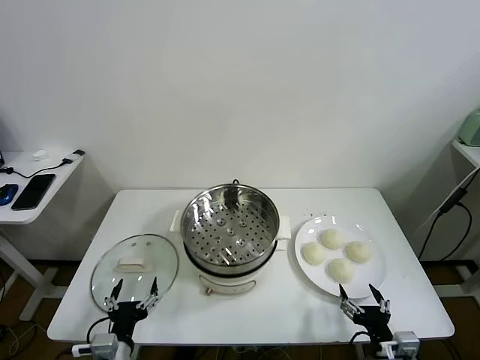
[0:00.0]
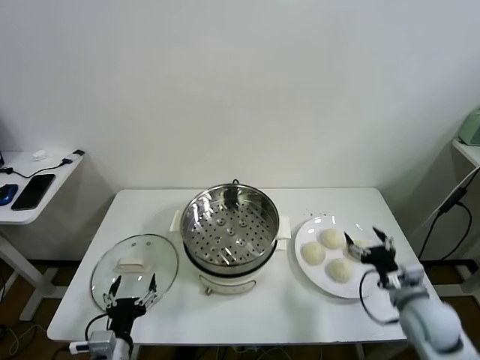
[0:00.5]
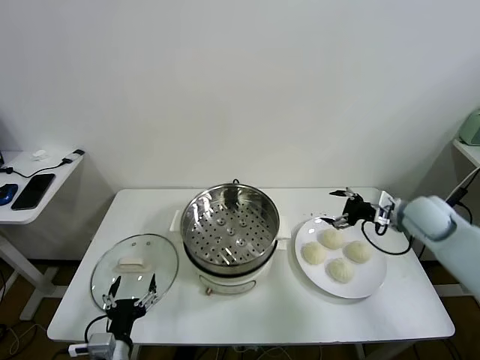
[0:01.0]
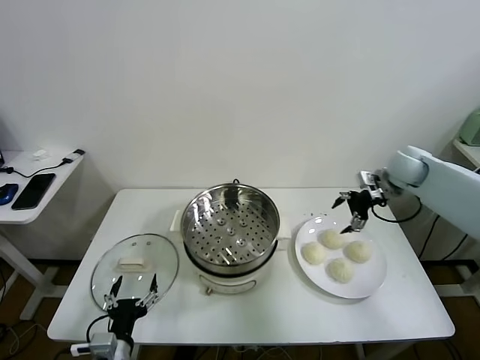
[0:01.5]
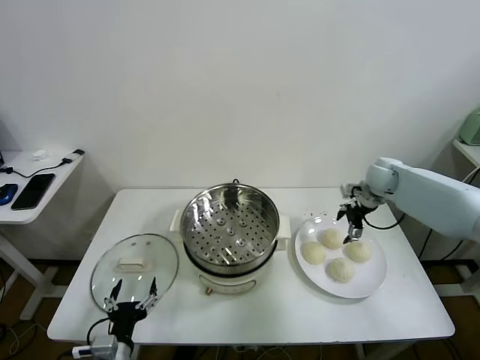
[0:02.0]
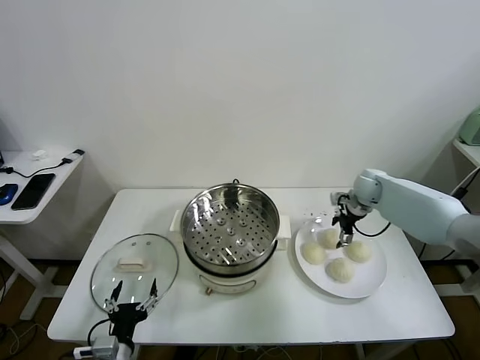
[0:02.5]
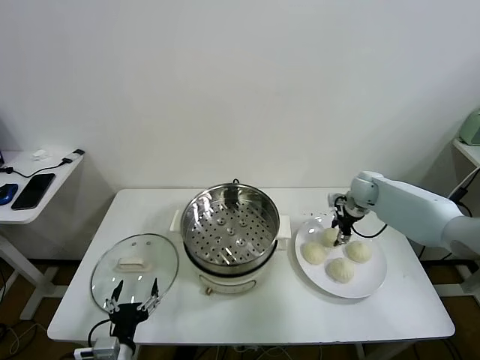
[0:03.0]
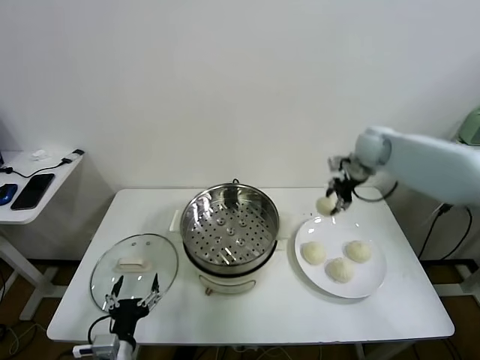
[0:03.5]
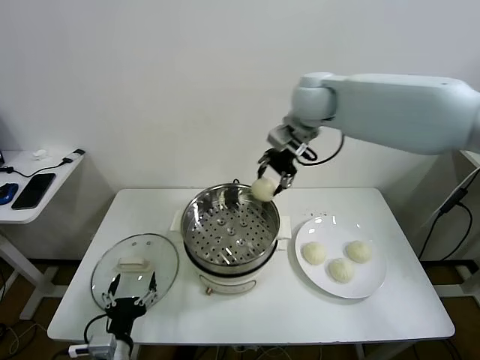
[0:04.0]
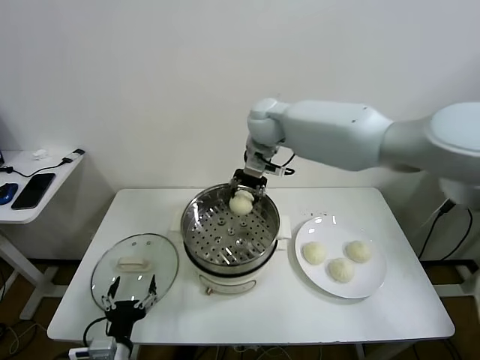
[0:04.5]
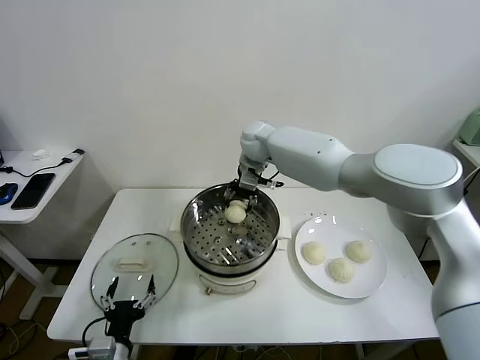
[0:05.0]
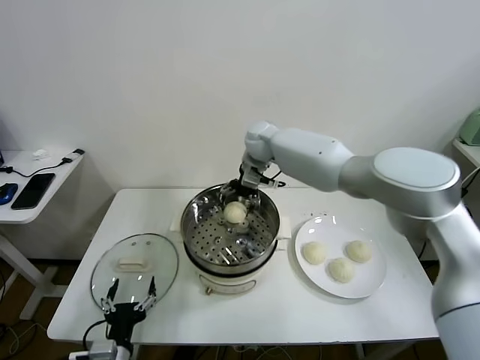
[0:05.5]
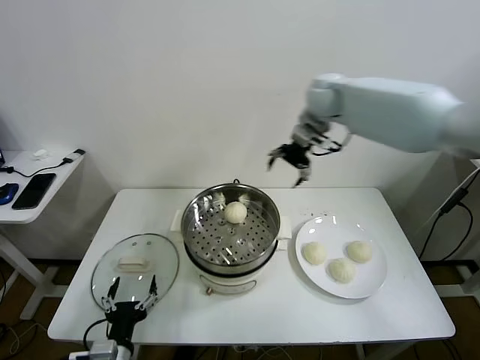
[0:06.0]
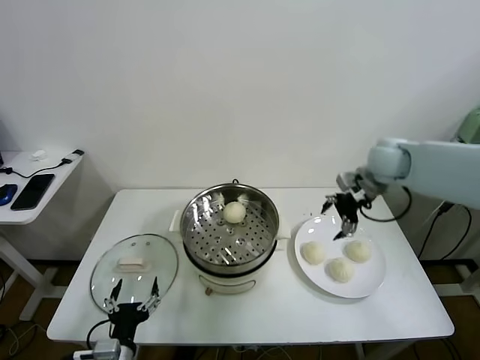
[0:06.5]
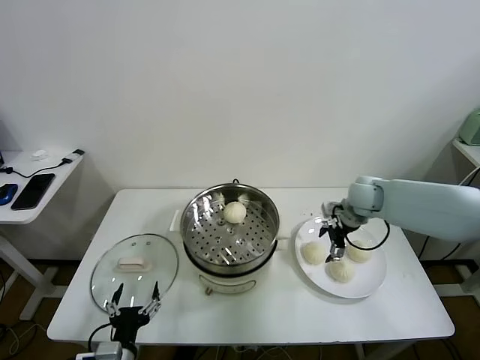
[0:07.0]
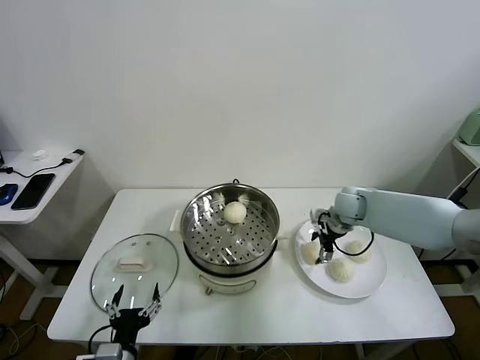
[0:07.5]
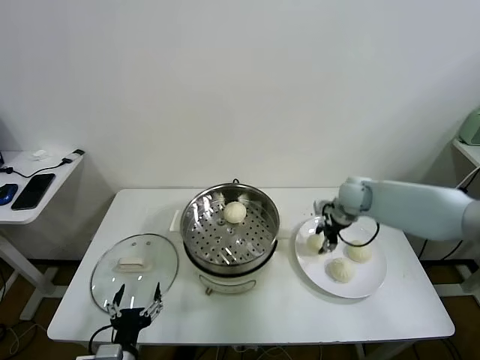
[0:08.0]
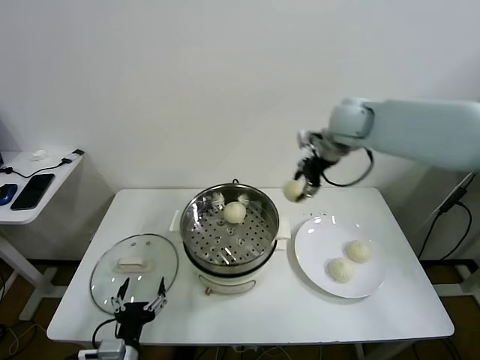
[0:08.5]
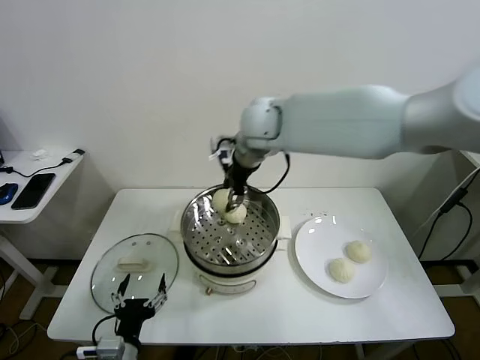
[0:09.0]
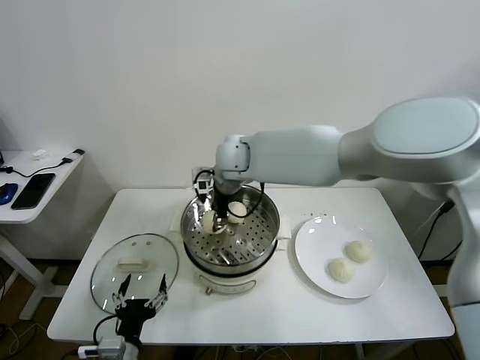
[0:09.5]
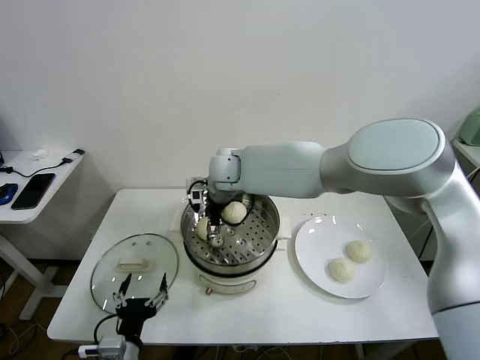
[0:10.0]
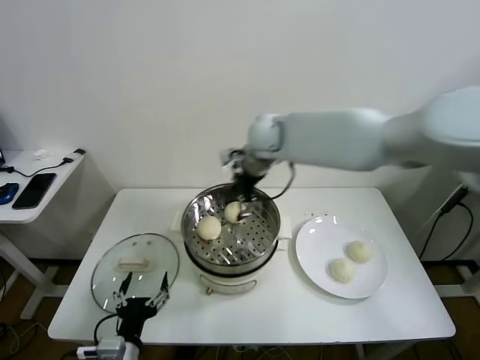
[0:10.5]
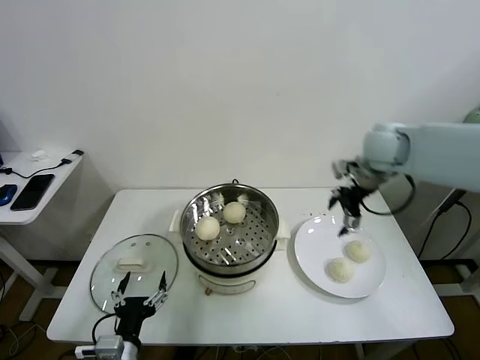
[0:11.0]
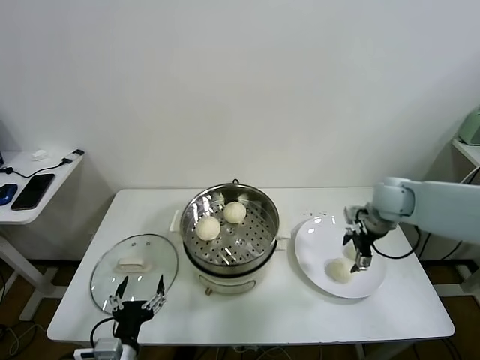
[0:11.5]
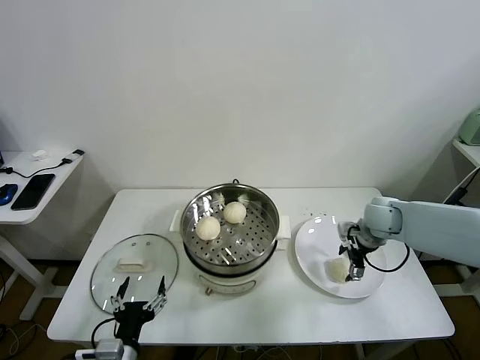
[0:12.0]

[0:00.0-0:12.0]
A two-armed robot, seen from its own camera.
Task of the whole recording: take steamed baozi put them in steamer.
Step, 0:00.0 to 0:02.5: Grasp the baozi in the plate with right gripper.
Step, 0:03.0 to 0:05.0: Place the baozi on the steamer with right gripper.
Step, 0:06.0 to 0:07.5: Grasp the baozi in the plate with right gripper.
Step, 0:08.0 to 0:10.0: Place the baozi on the steamer with right gripper.
0:02.0 to 0:04.0: The right gripper travels to the left and upward by some 35 cm, and closes its fingers.
0:04.0 to 0:06.0: The right gripper goes approximately 15 cm to the right, and opens.
0:06.0 to 0:08.0: The right gripper is displaced downward by some 20 cm, and closes.
0:08.0 to 0:10.0: The right gripper travels to the left by about 35 cm, and opens up.
0:10.0 to 0:12.0: The right gripper travels to the right by roughly 40 cm.

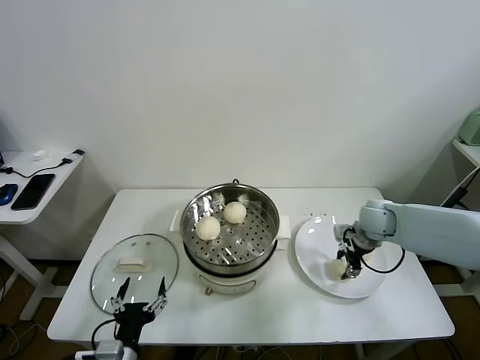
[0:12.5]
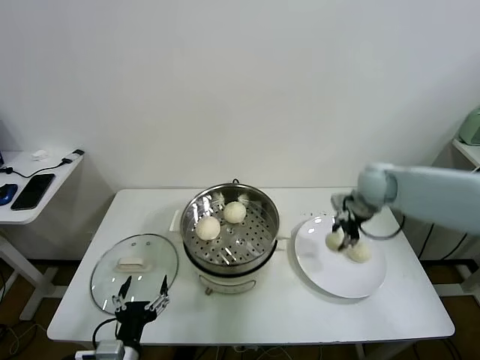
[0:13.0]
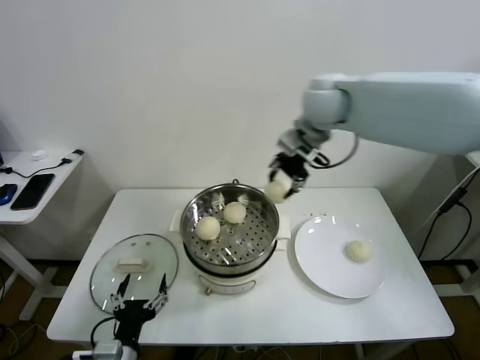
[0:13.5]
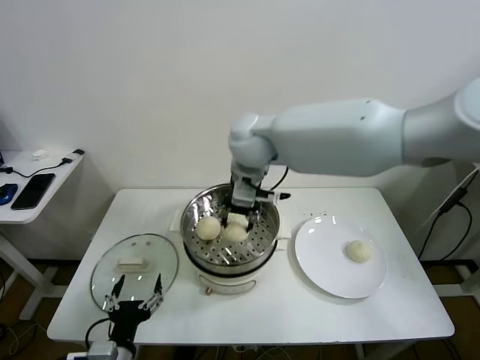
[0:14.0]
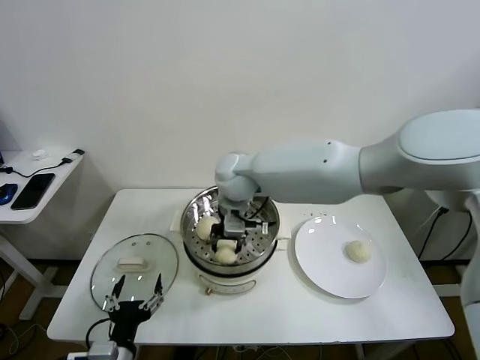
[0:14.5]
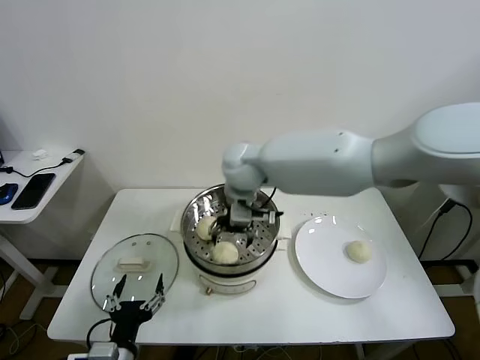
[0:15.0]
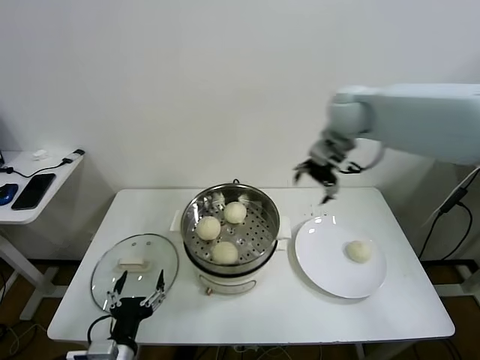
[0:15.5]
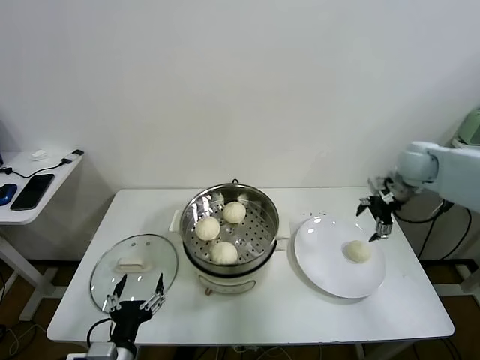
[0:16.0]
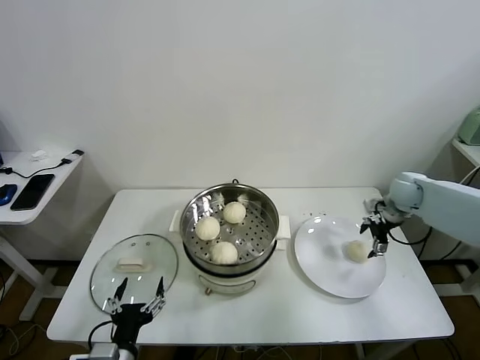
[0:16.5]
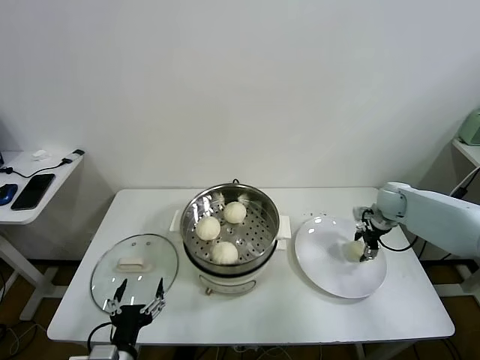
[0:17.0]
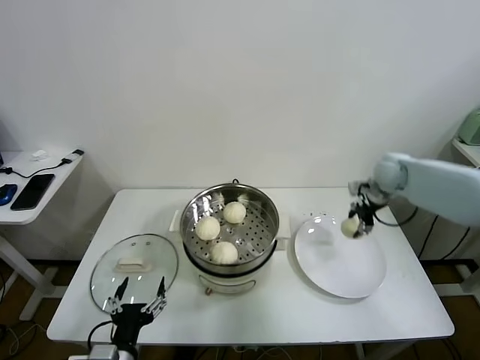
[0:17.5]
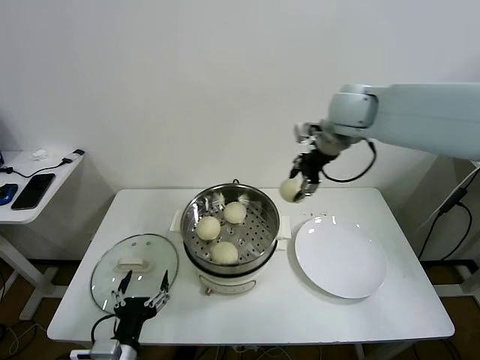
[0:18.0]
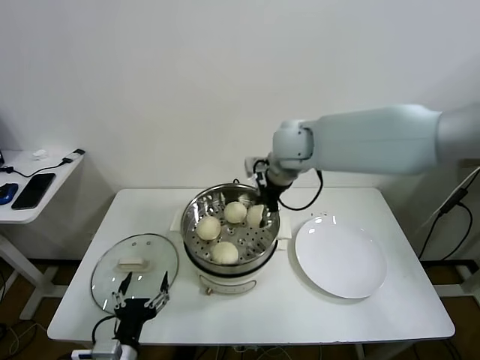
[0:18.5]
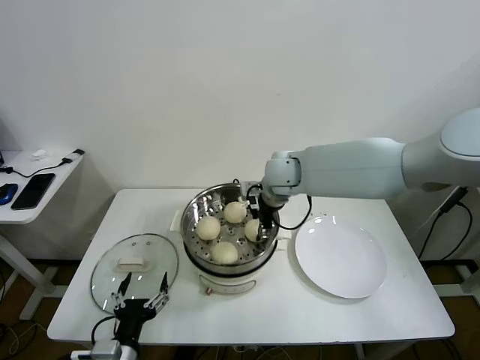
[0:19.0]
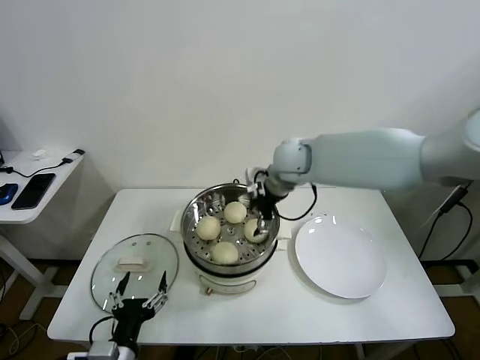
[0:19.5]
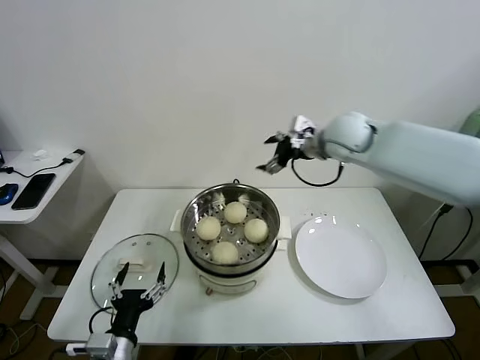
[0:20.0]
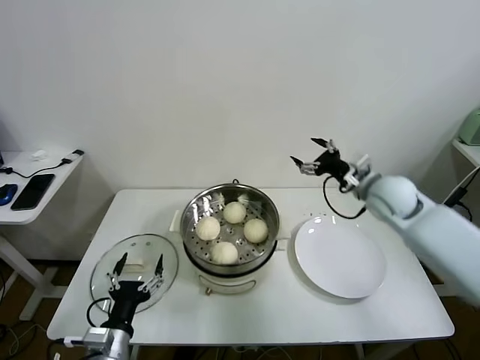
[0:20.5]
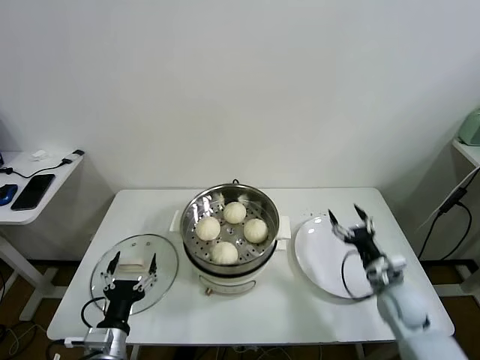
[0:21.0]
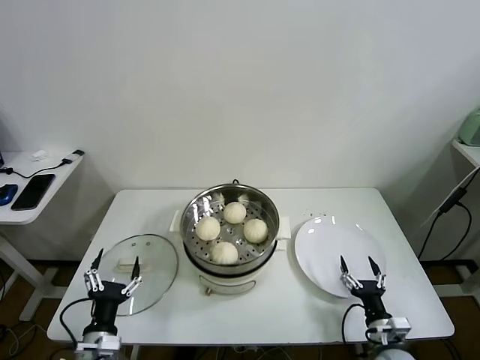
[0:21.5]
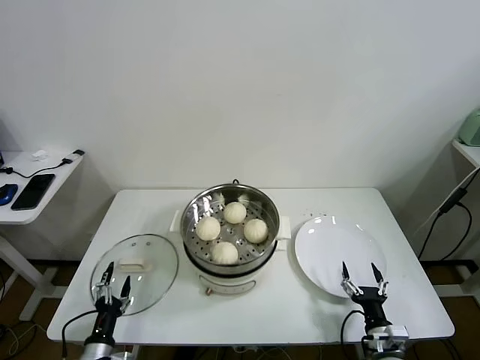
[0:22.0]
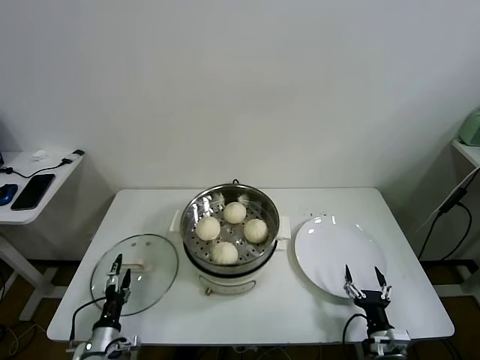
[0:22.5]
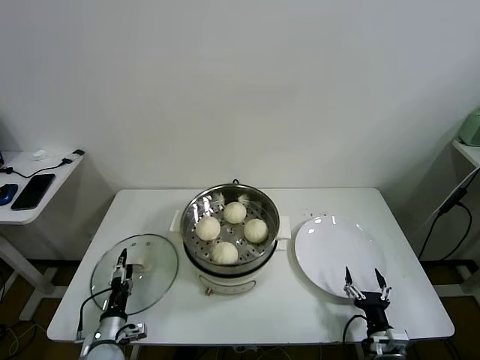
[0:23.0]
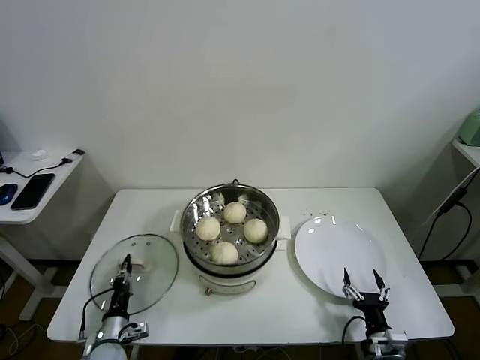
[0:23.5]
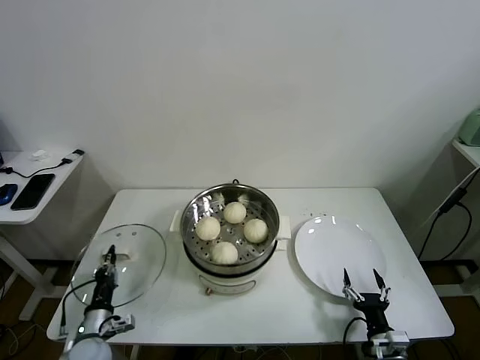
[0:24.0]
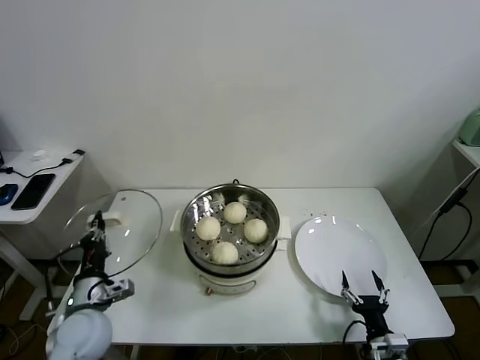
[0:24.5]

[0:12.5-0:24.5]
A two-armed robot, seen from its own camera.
Task of the whole recording: take steamed baozi put them in steamer.
Step, 0:13.0 to 0:14.5: Place the baozi on the steamer with right gripper.
Step, 0:15.0 to 0:17.0: Grasp the baozi in the plate with right gripper.
Step, 0:17.5 to 0:19.0: Place the baozi on the steamer with right gripper.
Step, 0:19.5 to 0:23.5: Grasp the pot lid with left gripper.
0:12.5 to 0:14.5: The right gripper goes about 40 cm to the left and upward.
0:14.5 to 0:16.5: The right gripper travels to the right by some 40 cm, and opens up.
0:16.5 to 0:18.5: The right gripper moves to the left and upward, about 35 cm, and closes.
0:18.5 to 0:20.5: The right gripper shifts some 25 cm to the right and downward, and opens its fingers.
0:20.5 to 0:22.5: The left gripper goes roughly 20 cm downward and to the left. Meanwhile the right gripper shifts about 40 cm downward and backward.
0:22.5 to 0:24.5: The left gripper moves upward, roughly 15 cm, and closes.

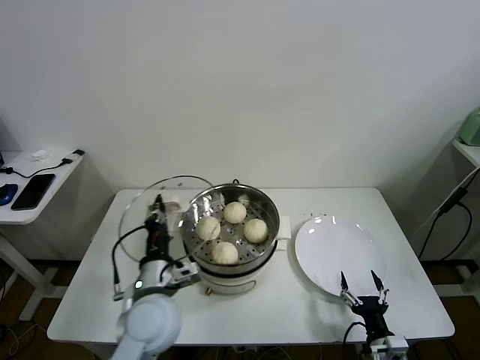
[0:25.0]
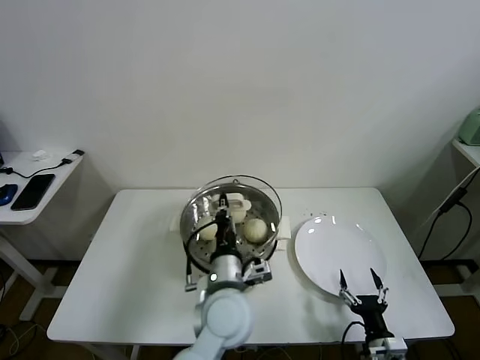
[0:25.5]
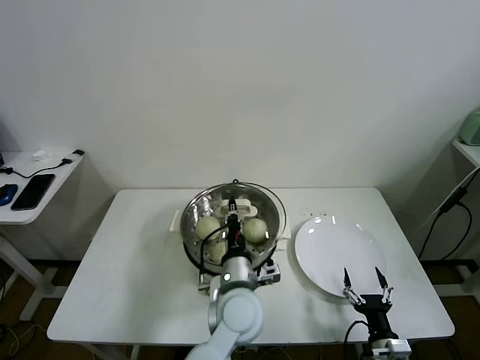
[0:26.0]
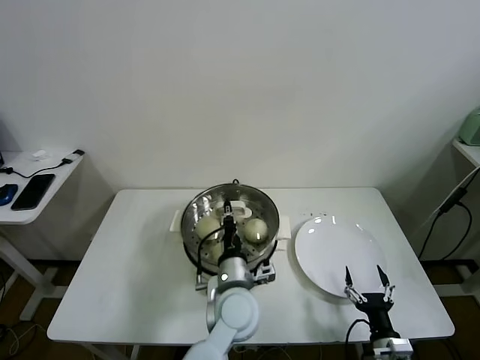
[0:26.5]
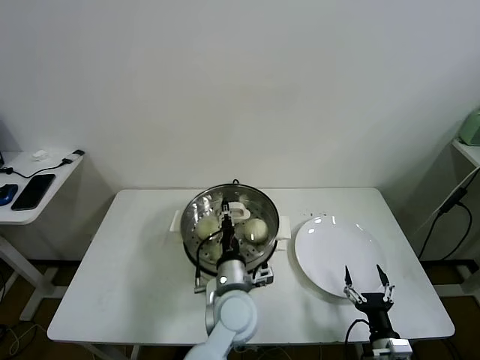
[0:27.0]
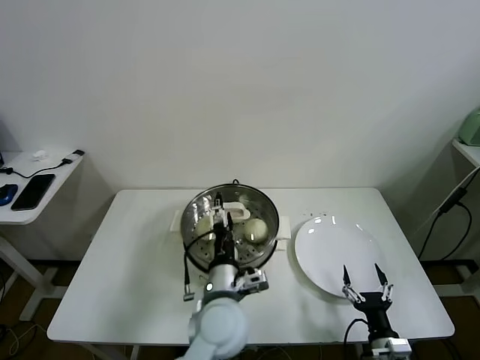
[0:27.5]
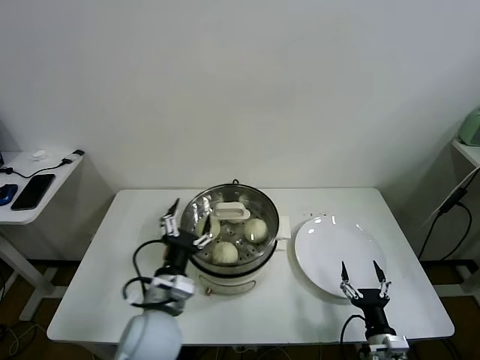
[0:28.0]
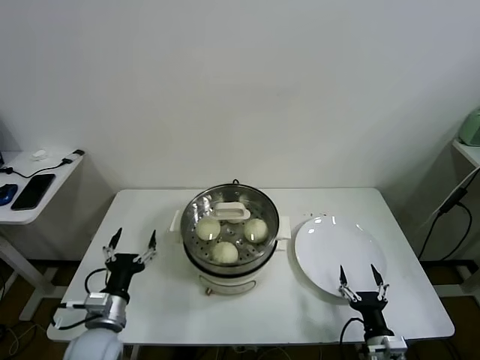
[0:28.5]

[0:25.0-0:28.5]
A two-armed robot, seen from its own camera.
Task of the whole recording: take steamed baozi put them in steamer.
Step, 0:25.0 to 0:27.0: Place the pot lid on the steamer with left gripper.
0:25.0 to 0:27.0: The left gripper travels to the right by roughly 15 cm.
0:27.0 to 0:28.5: The left gripper travels to the left by some 25 cm, and opens up.
